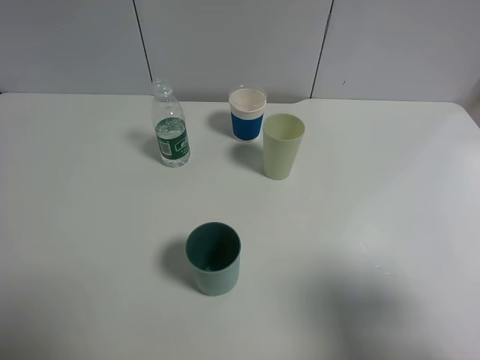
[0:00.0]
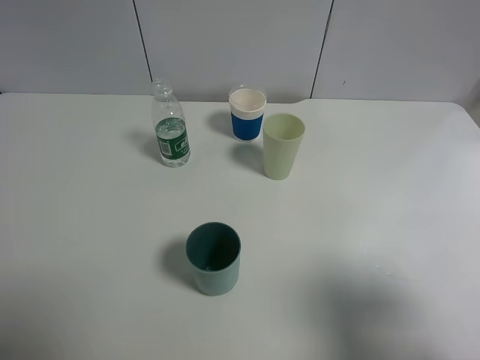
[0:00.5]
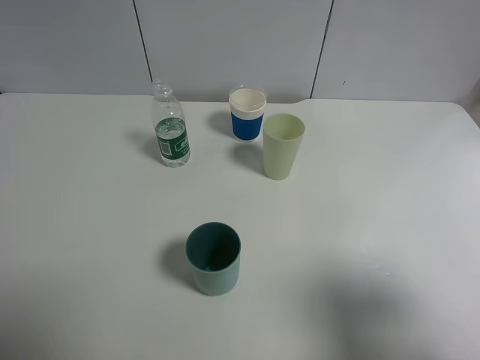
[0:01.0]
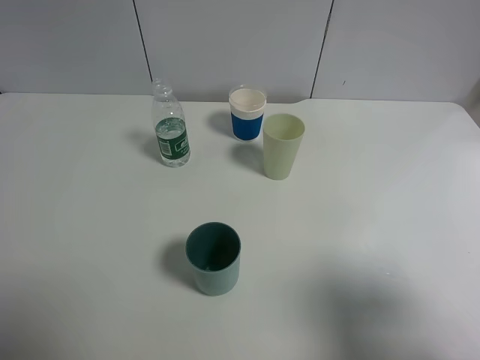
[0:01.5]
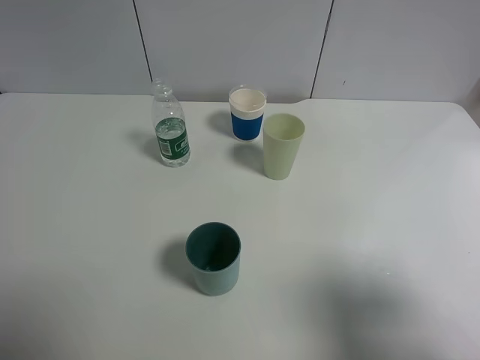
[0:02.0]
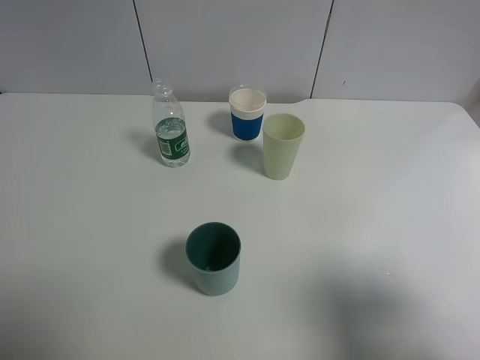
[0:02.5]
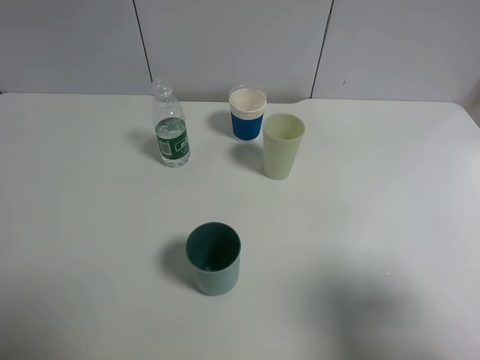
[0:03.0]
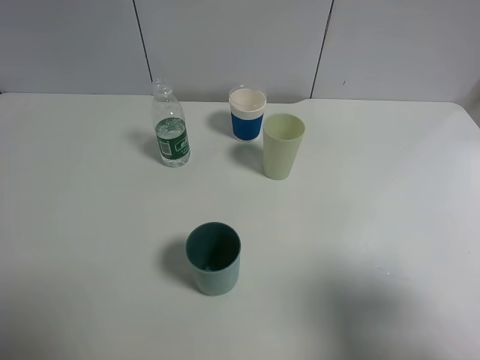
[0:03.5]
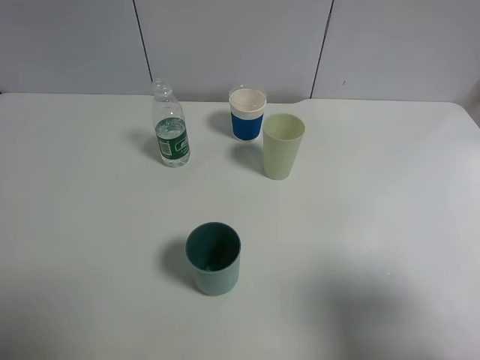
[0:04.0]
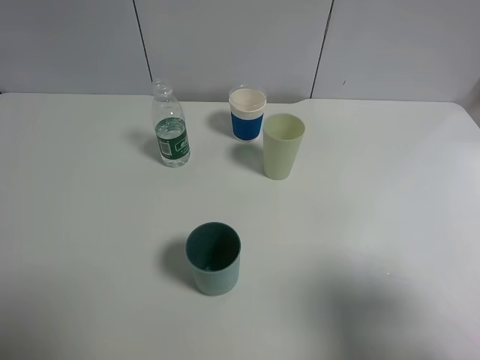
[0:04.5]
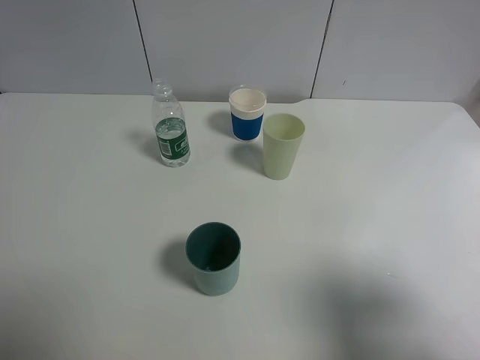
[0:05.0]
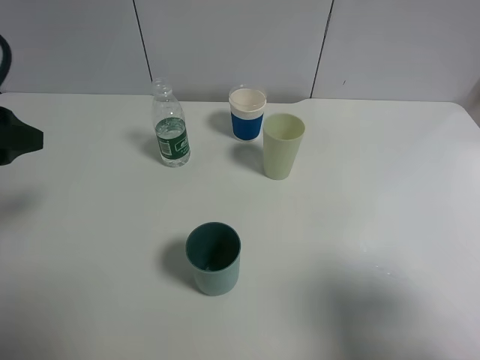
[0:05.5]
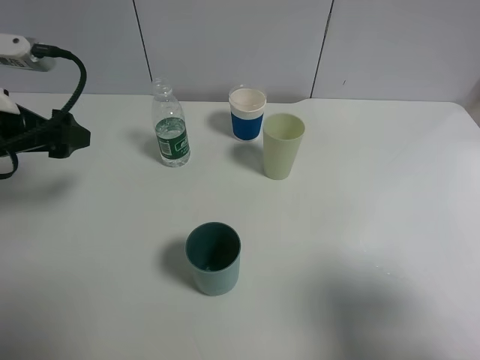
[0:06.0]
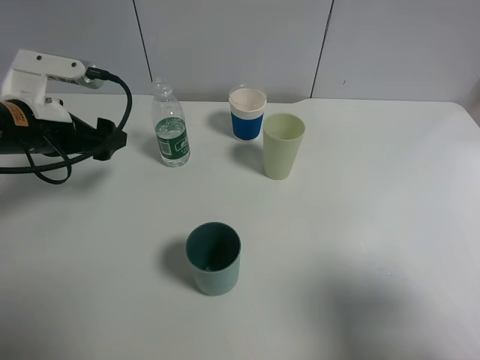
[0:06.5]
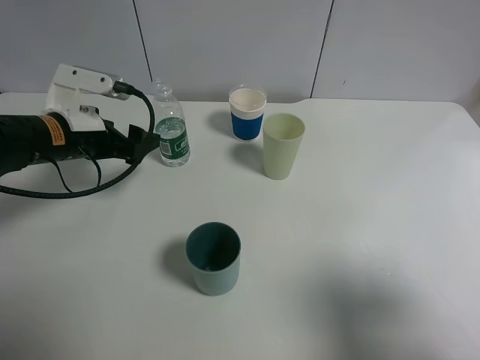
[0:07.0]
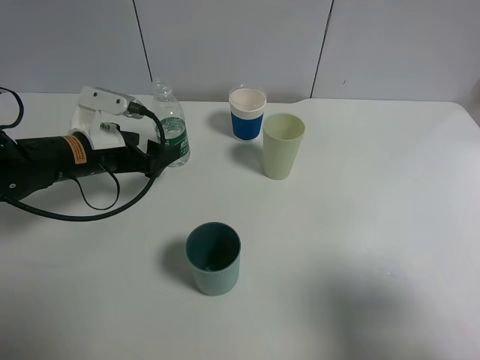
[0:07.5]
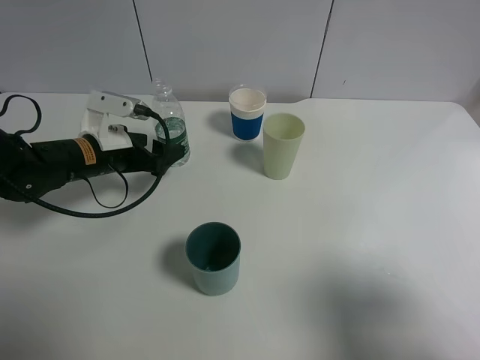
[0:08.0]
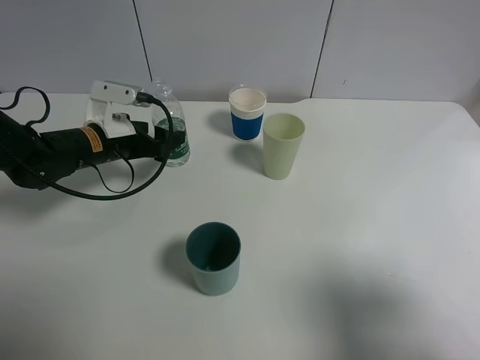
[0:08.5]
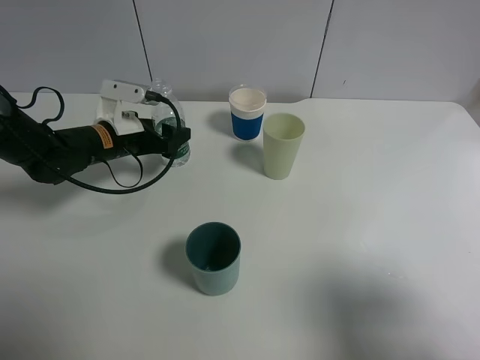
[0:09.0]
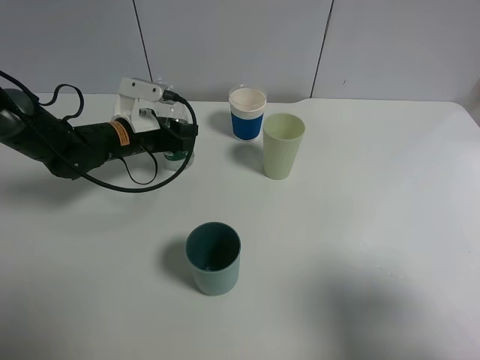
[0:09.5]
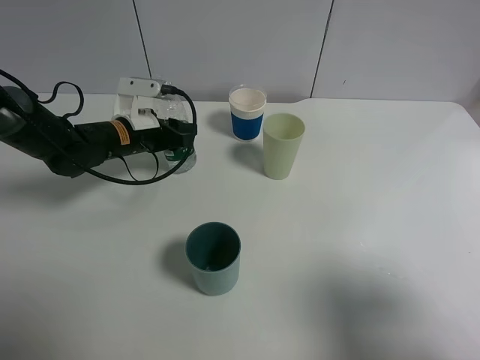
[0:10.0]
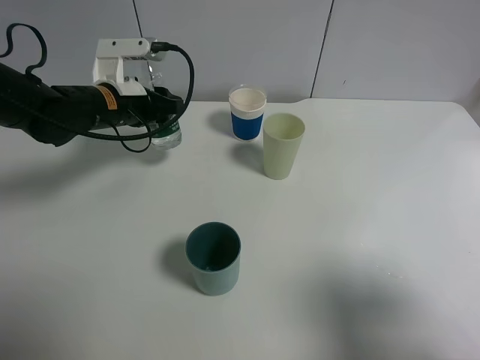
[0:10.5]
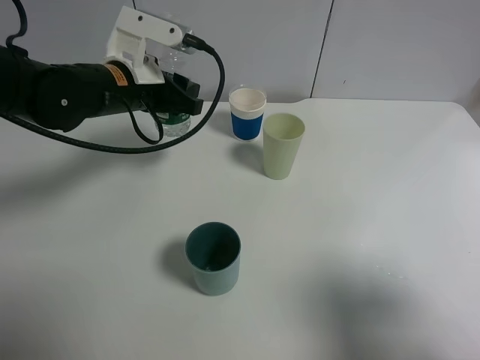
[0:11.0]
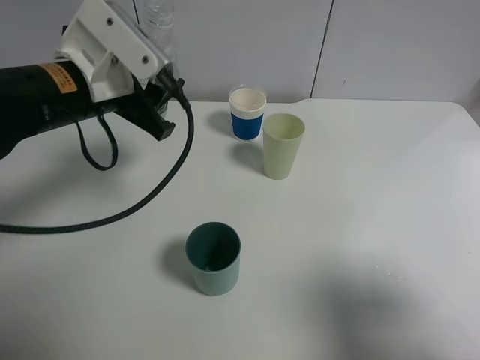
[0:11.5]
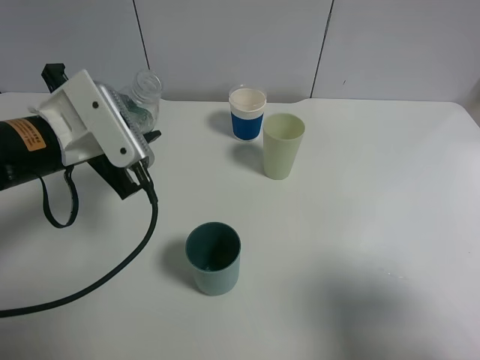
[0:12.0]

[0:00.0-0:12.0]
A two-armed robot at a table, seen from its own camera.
Task of the whole recording: use a gripper to hold the bottle of the drink and pour it into a random cup.
Step, 0:00.0 to 0:09.5: Grasp the mineral water bottle with the left gripper.
0:00.0 to 0:04.0: Neither gripper changes place.
0:04.0 to 0:06.0: The left gripper heads forward, covering approximately 25 cm.
0:06.0 to 0:08.0: The left gripper is displaced downward, forward and to the right by roughly 15 cm.
0:08.0 to 0:10.0: The left gripper goes some 5 cm forward, and closes up.
0:10.0 to 0:12.0: The left gripper shifts roughly 20 cm backward and upward.

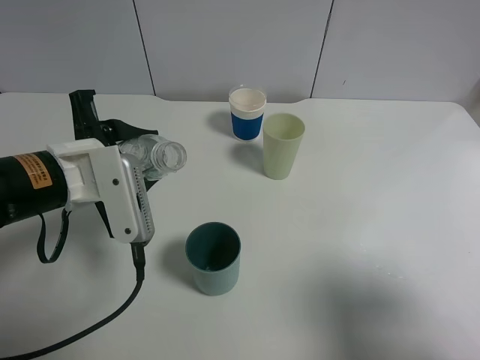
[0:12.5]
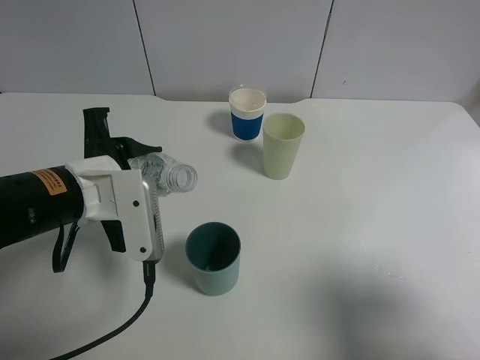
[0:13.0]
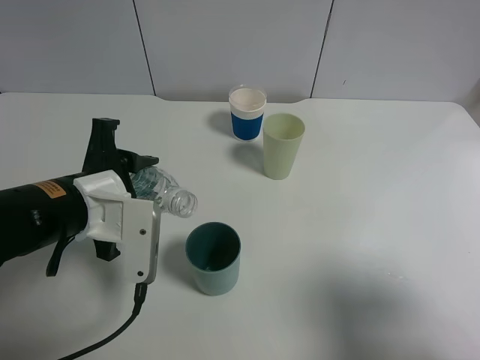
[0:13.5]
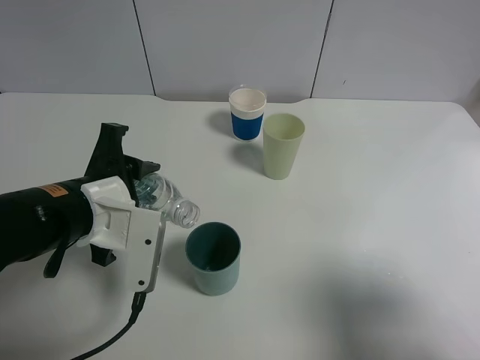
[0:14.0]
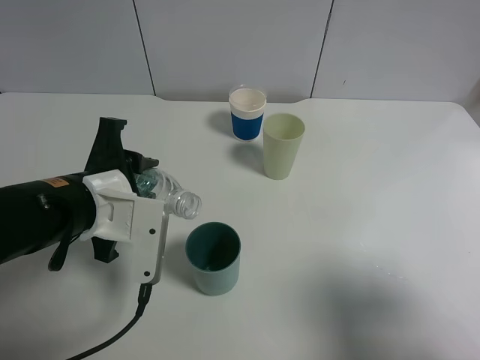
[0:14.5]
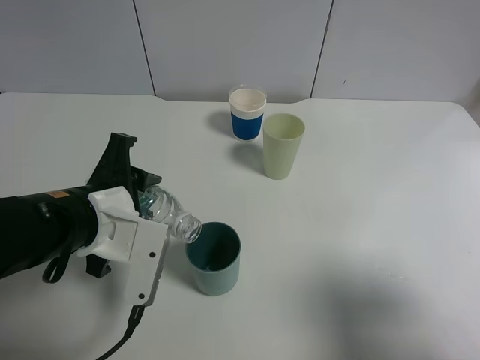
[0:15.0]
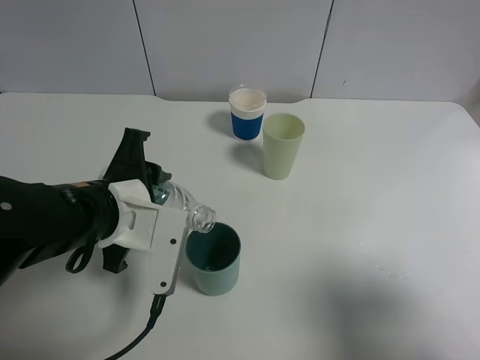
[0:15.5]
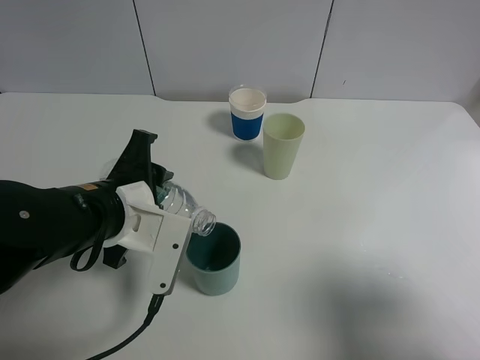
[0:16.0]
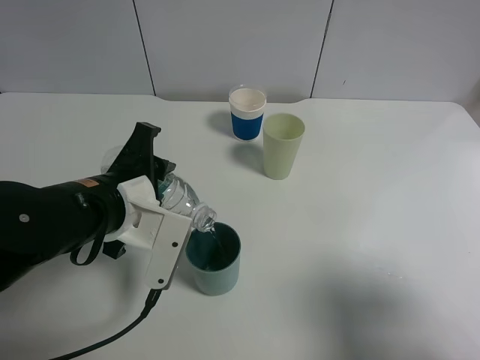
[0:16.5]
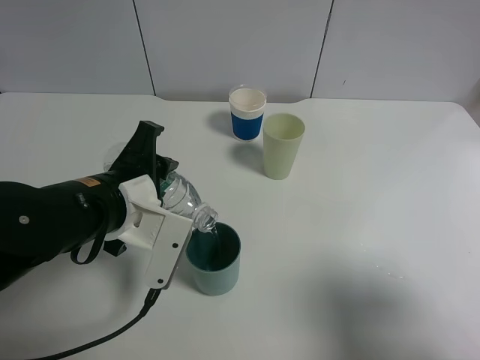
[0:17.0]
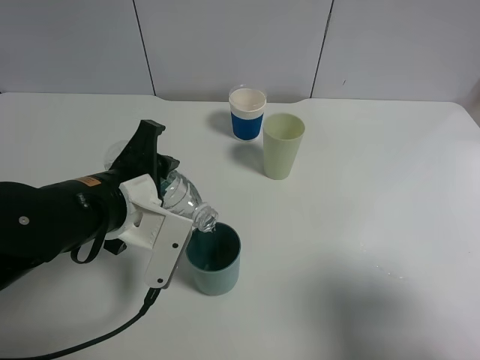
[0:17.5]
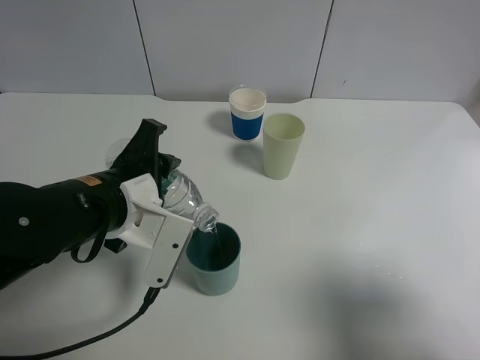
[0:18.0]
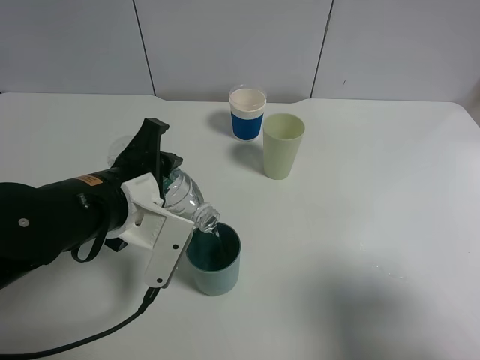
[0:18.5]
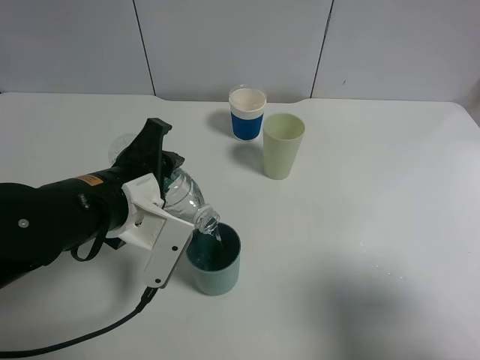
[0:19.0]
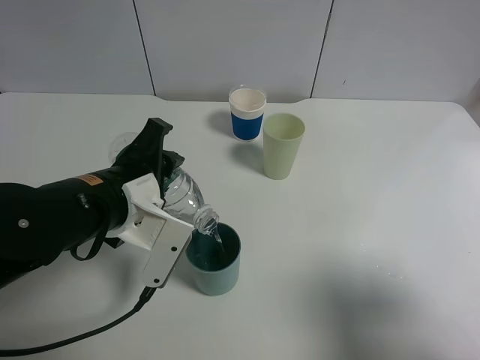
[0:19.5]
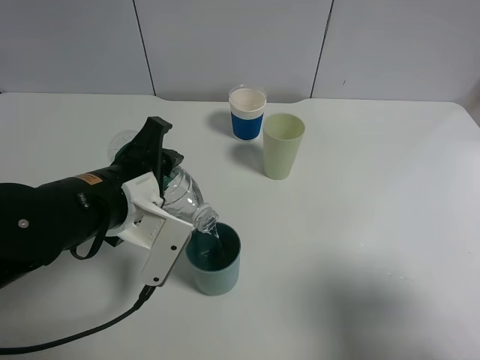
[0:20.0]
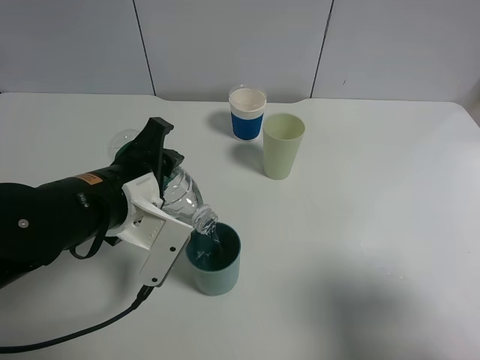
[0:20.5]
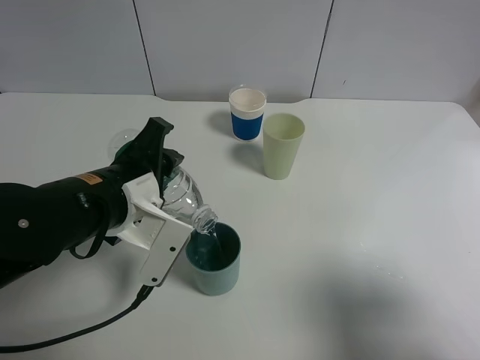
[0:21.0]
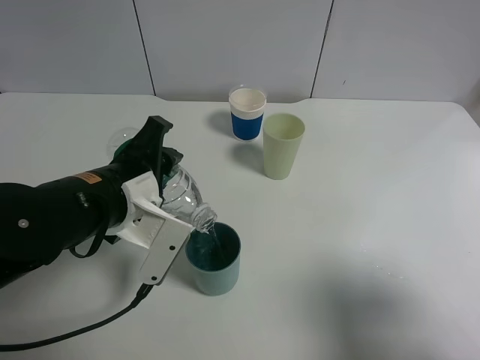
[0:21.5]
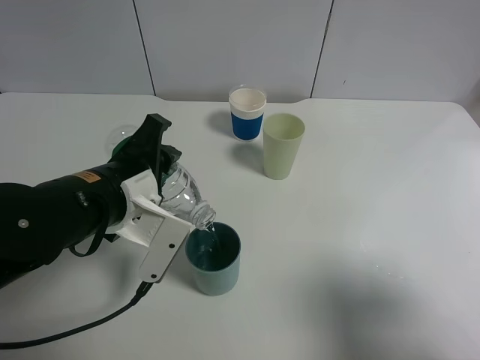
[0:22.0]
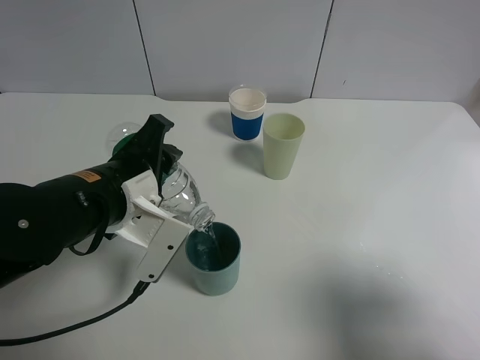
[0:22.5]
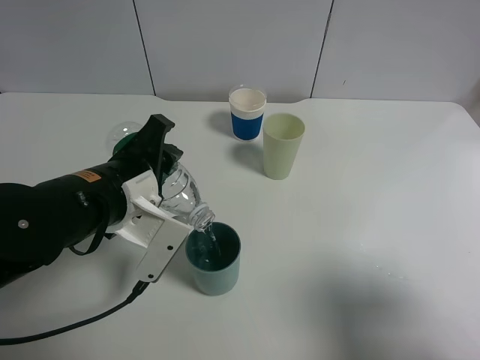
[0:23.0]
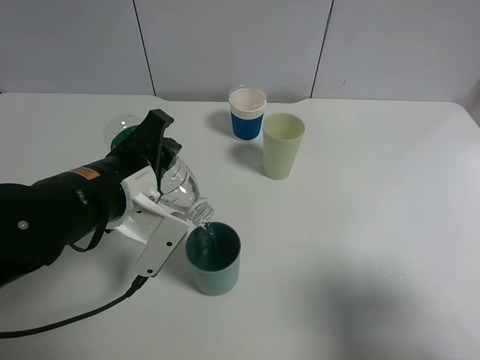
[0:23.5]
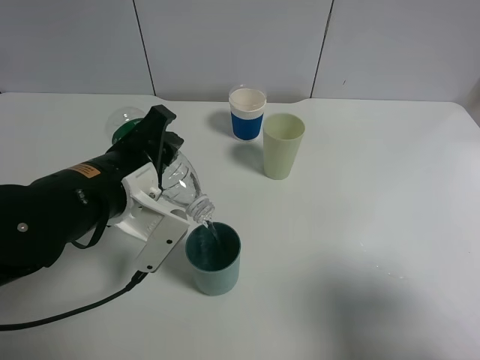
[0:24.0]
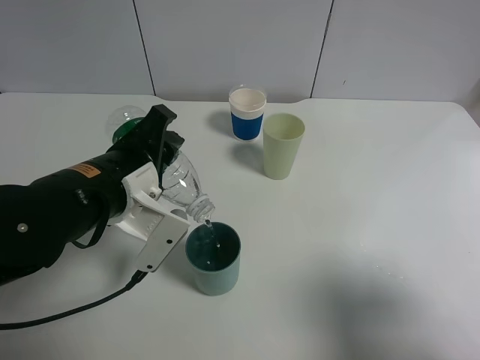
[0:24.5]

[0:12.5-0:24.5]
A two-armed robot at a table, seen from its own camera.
Task of the whole recording: use a gripper to hold the bottle of the drink and pour it into a random cup.
0:14.5 to 0:18.5: The grippers make only small movements.
0:18.5 to 0:20.5: Both grippers stay put.
0:20.5 to 0:22.5: The two grippers keep their place.
0:22.5 to 0:24.5: The grippers stay close to where they were, moving slightly.

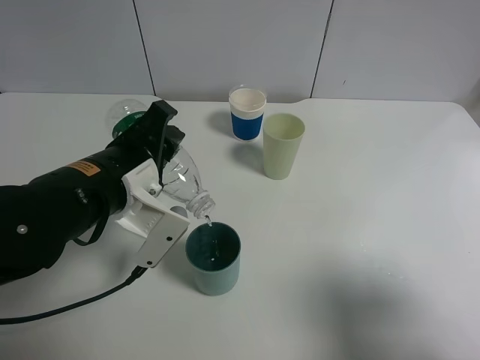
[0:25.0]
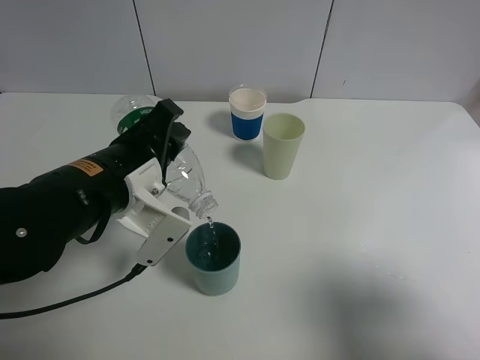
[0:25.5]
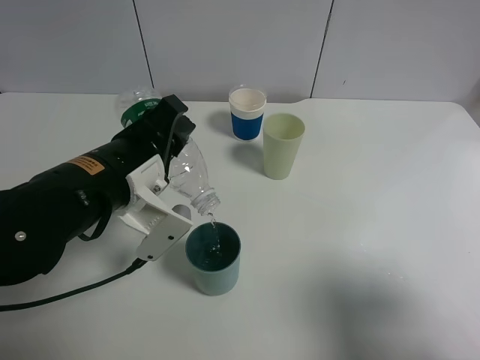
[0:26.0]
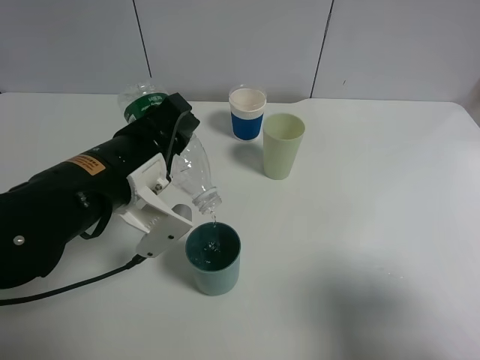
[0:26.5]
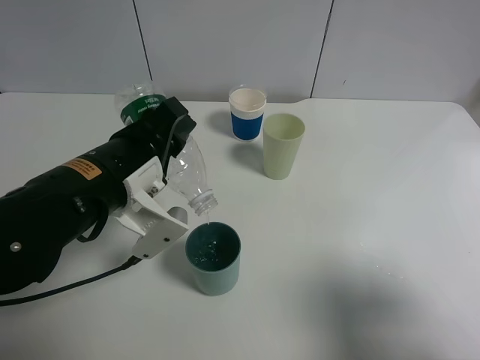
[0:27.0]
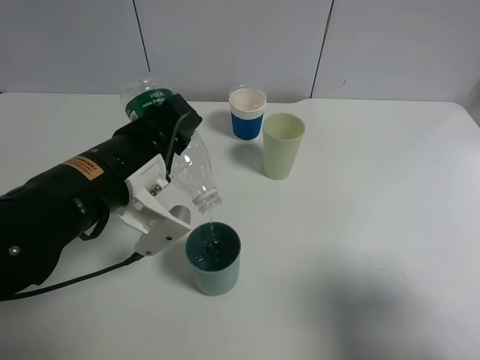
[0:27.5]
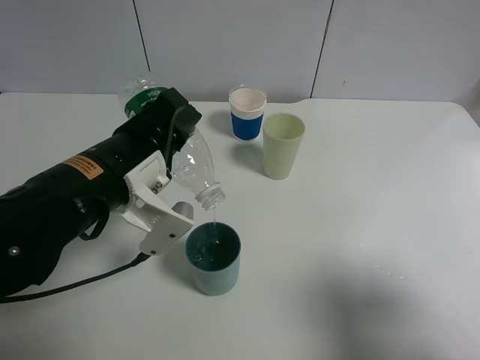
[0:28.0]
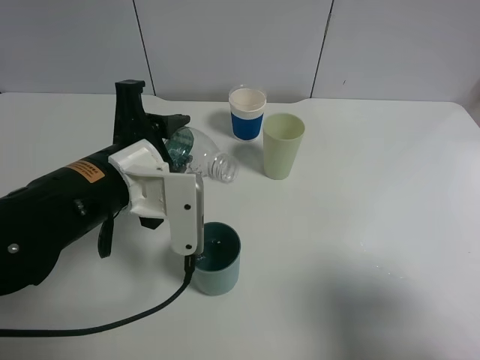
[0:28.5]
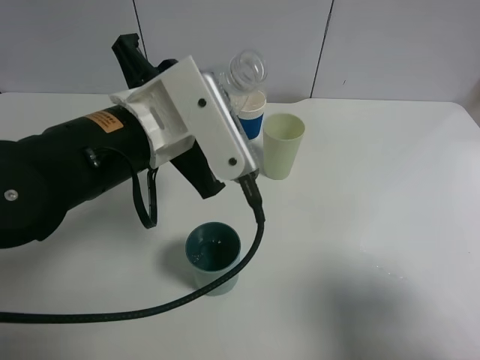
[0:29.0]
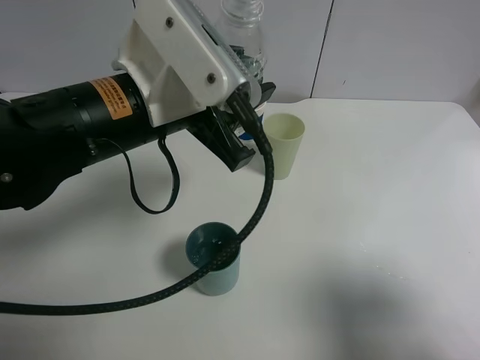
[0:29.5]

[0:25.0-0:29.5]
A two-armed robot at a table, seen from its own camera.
Task of the whole recording: use a gripper to hold the bottle of the drink and pour it into a random cup.
Step, 0:25.0 to 0:28.5: Pour the mineral water into the cyan cup with the left gripper.
0:25.0 to 0:27.0: There are only small adjustments of the grippers.
0:27.0 to 0:29.5: The left gripper is displaced upward by some 5 cm.
